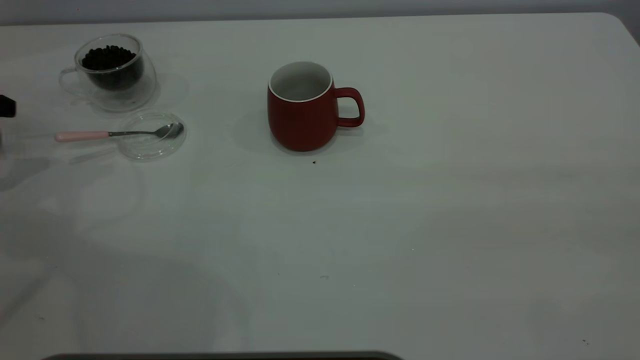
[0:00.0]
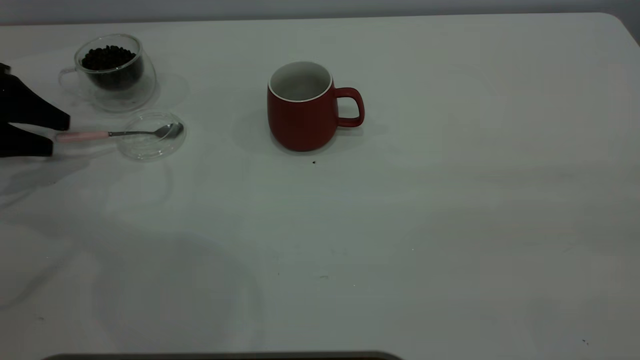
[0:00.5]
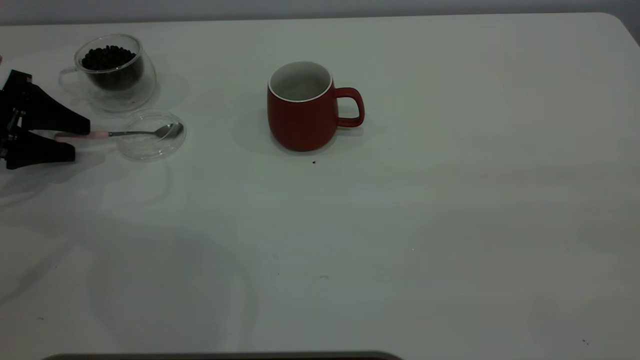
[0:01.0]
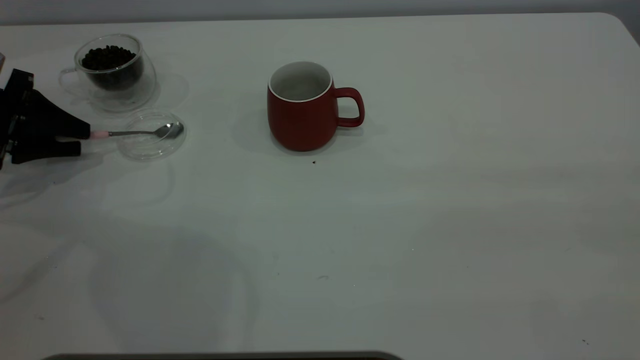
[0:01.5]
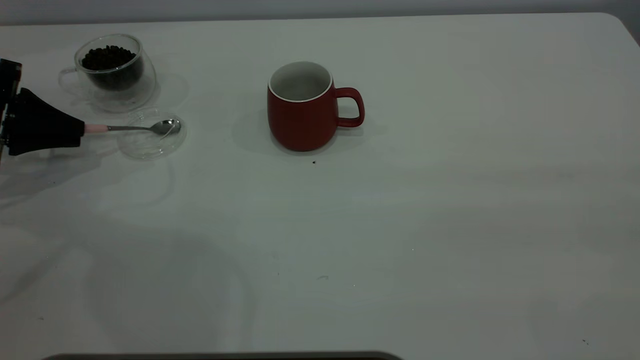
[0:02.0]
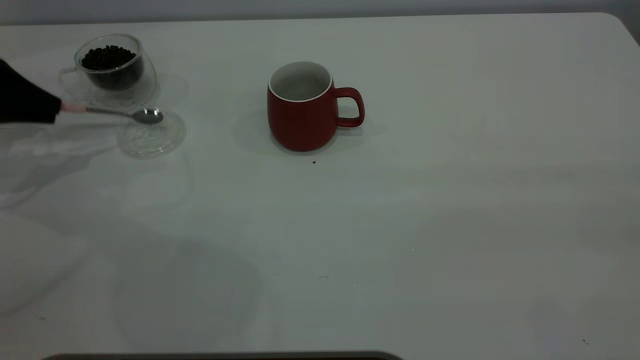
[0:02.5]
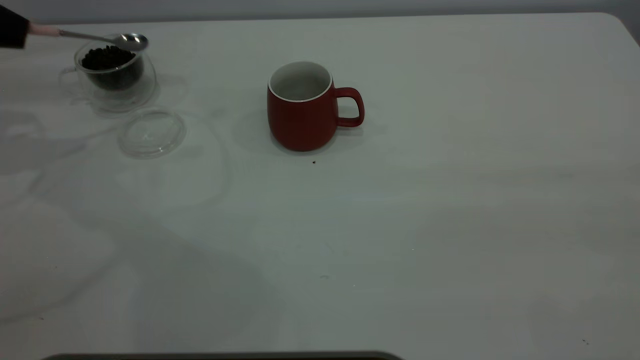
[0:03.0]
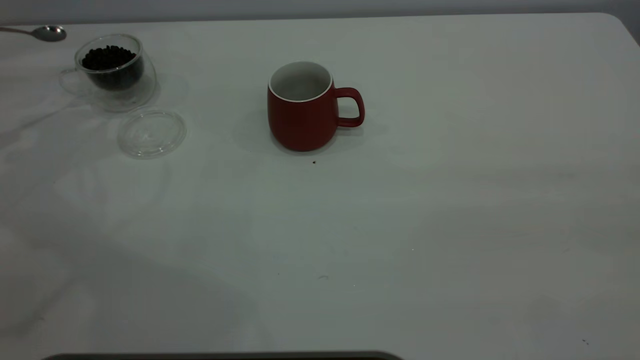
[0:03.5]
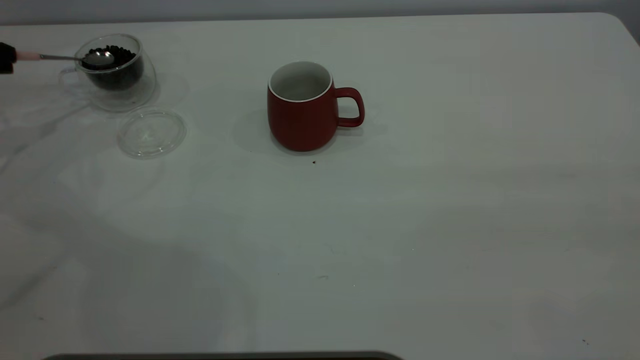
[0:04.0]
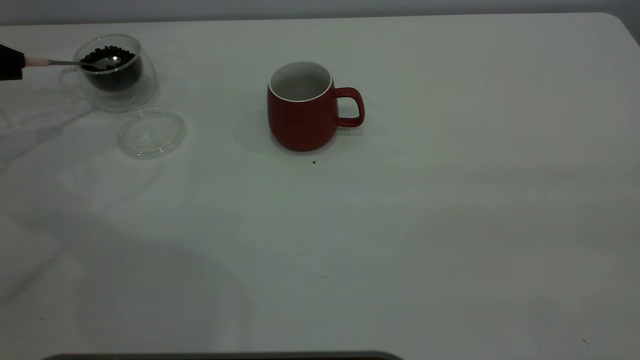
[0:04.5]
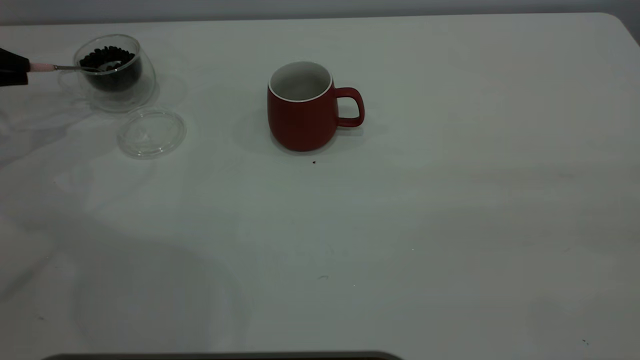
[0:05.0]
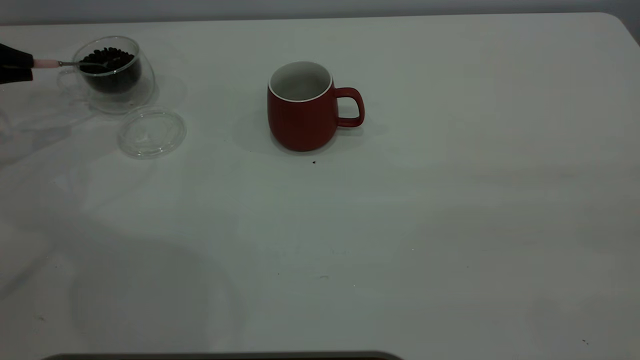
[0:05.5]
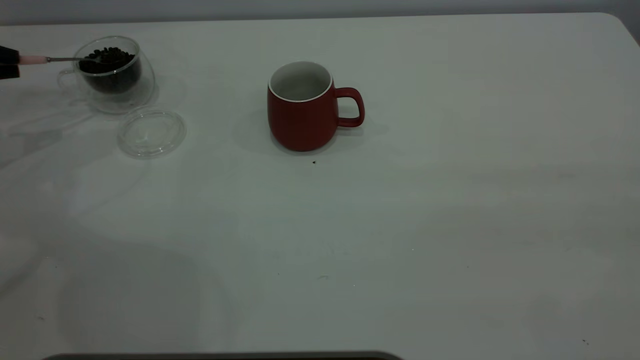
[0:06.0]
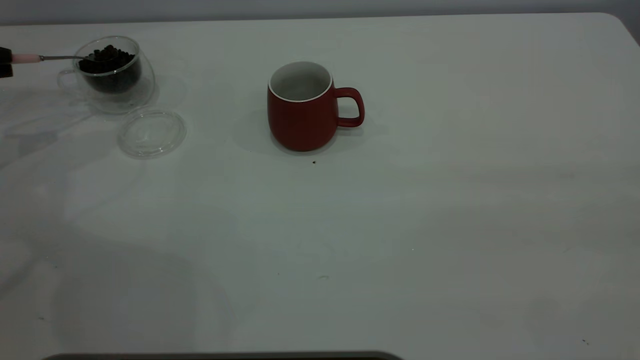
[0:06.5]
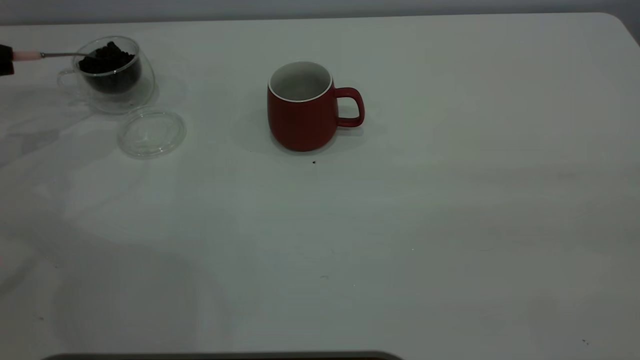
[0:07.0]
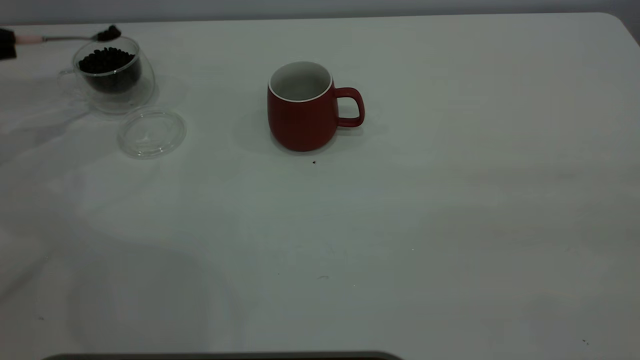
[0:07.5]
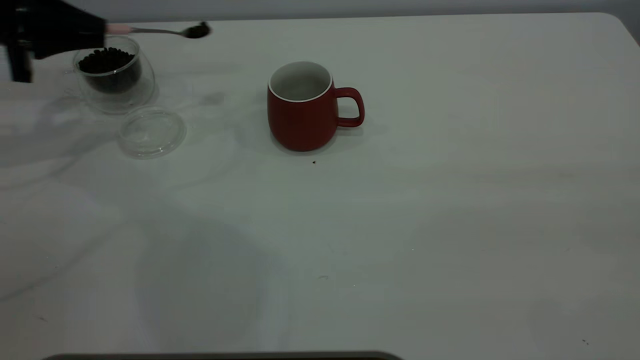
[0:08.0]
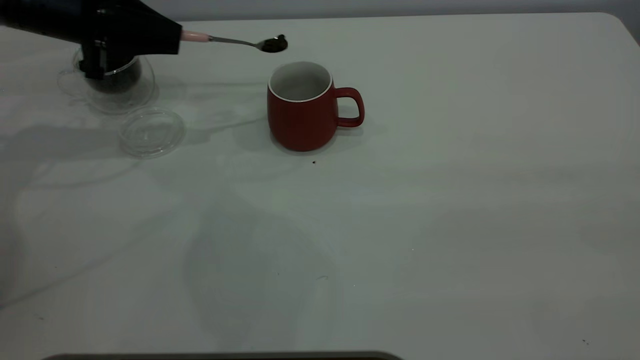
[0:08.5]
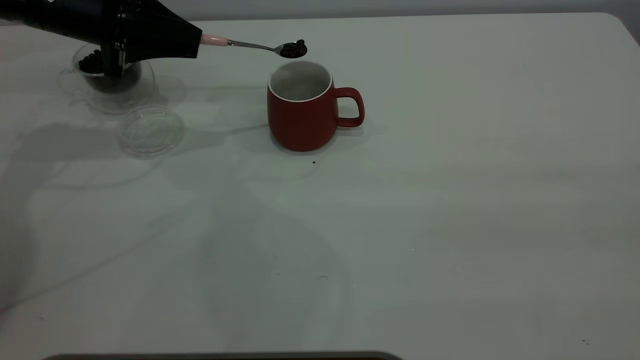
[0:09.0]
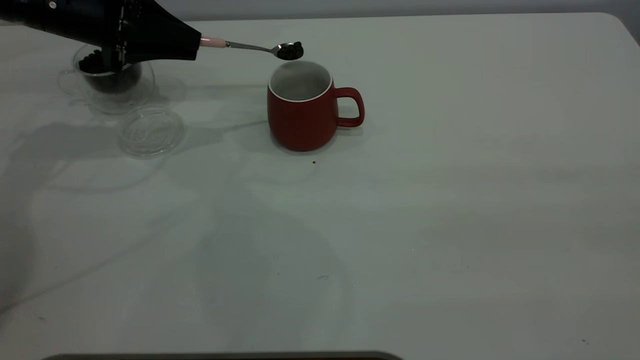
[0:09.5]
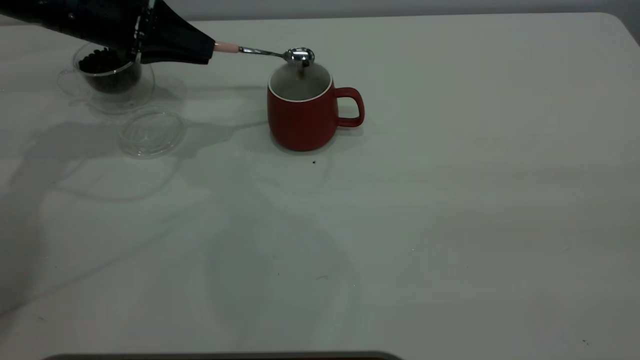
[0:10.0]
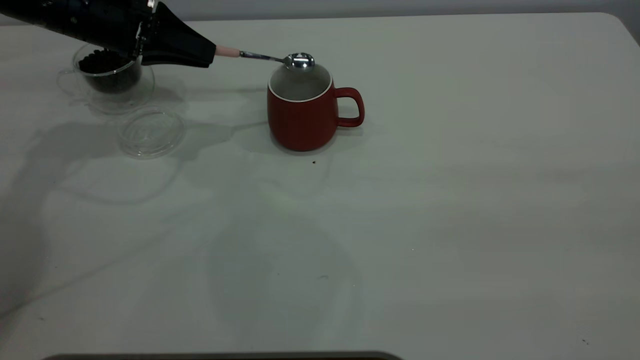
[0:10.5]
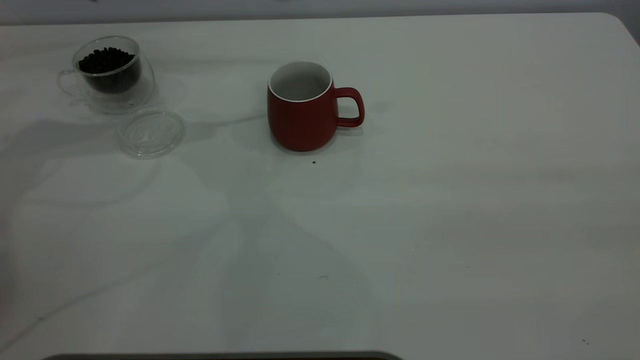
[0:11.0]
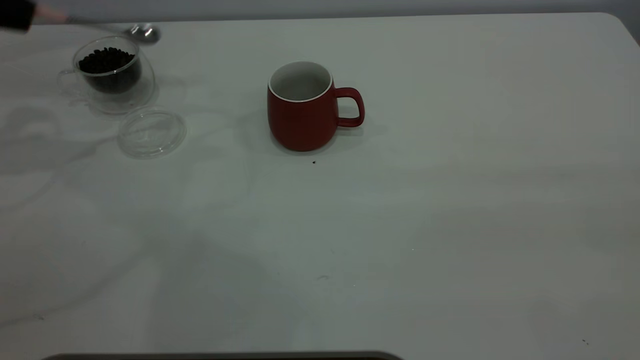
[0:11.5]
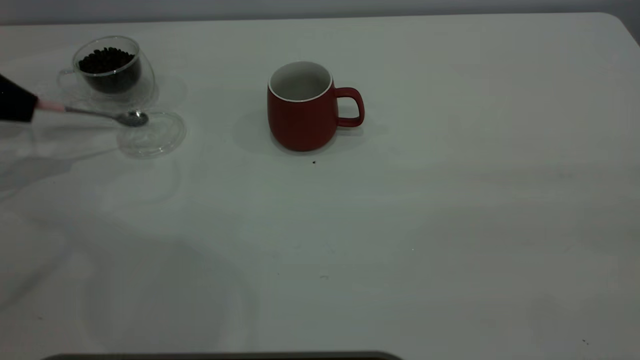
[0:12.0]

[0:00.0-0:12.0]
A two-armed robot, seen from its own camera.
Task of the whole recording: the right gripper place the red cup in the center of the table, the left gripper take the pink spoon from the cup lid and scoop out the coffee beans from the coffee cup and put them into the red cup, the left gripper put the spoon back into the cup lid.
Step, 0:00.0 to 0:02.5: Pick up the spoon.
Step, 0:03.0 to 0:10.5: Scoop a spoonful of beans into the cup.
0:00.0 to 0:02.0: The left gripper shifts approximately 5 cm to the right, and closes its fingers.
0:02.0 to 0:04.0: The left gripper is displaced upward and to the left by approximately 10 cm.
0:06.0 to 0:08.0: The left gripper moves to the right, about 10 cm.
0:08.0 to 0:10.0: The left gripper heads to the right, covering approximately 10 cm.
0:10.0 to 0:12.0: The left gripper goes roughly 20 cm to the left.

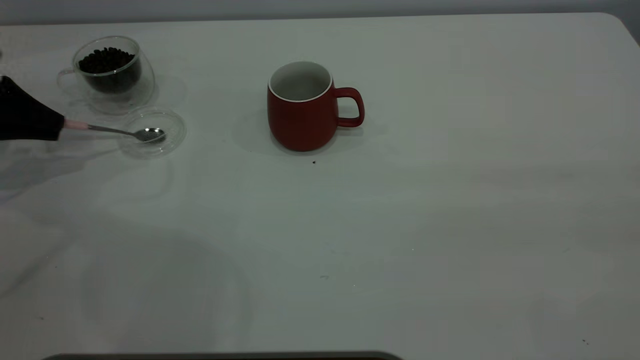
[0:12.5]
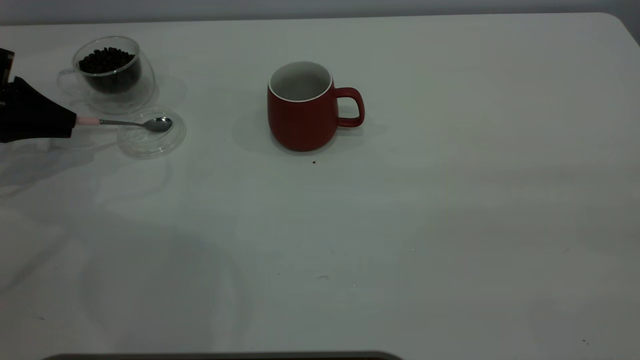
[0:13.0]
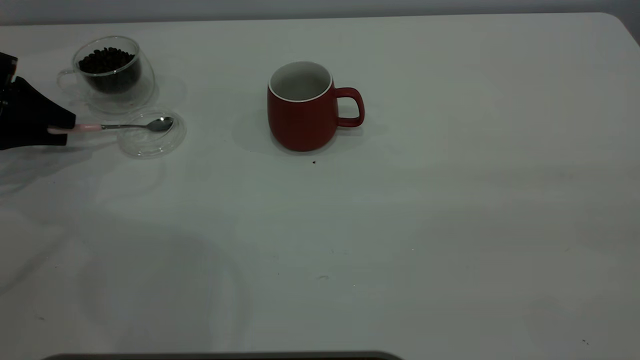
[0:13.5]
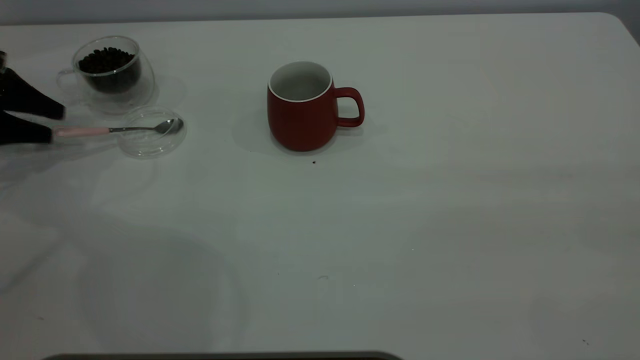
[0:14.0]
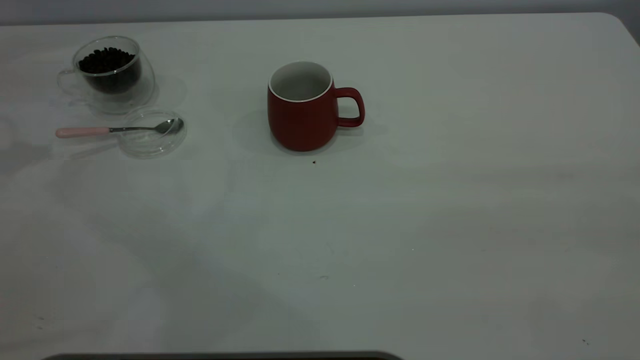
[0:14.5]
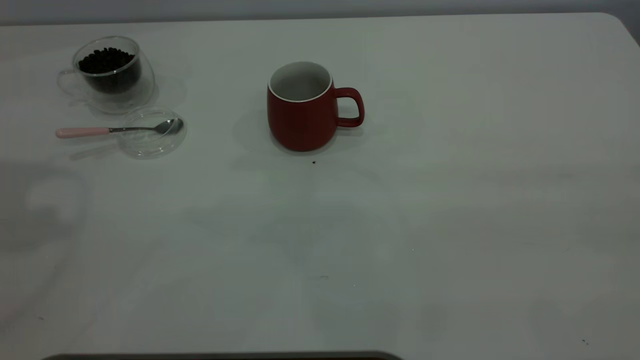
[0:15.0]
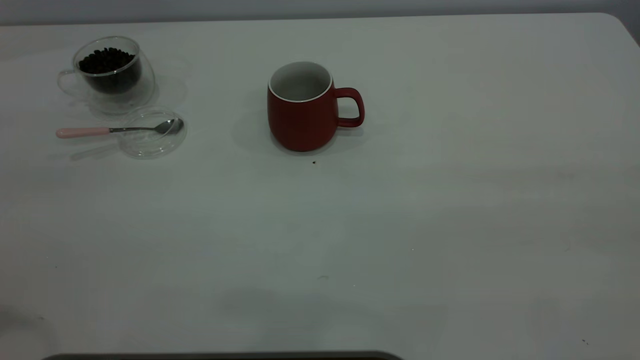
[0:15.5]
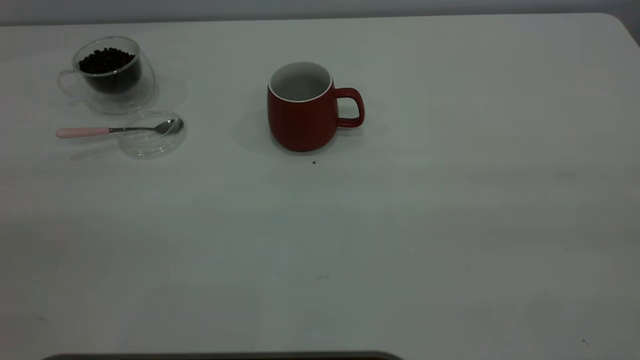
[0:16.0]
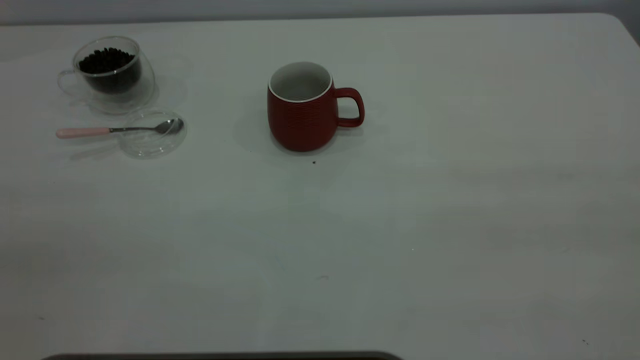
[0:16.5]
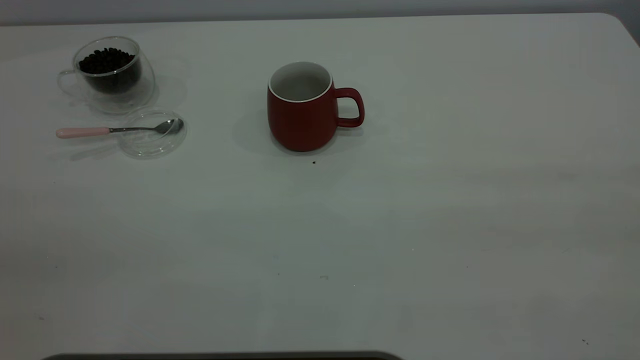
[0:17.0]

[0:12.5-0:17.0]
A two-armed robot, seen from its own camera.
Task of the whole recording: the right gripper place the red cup in the center of the table, the left gripper take the pink spoon from the cup lid and scoop out the coffee beans from the coffee cup and put them into the red cup, the left gripper put the spoon back into the cup lid.
0:12.5 to 0:14.5: The left gripper moves upward, roughly 20 cm, and opens its fingers.
